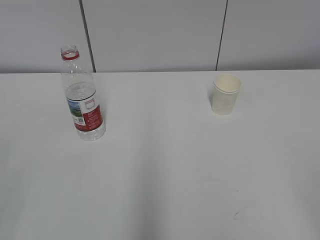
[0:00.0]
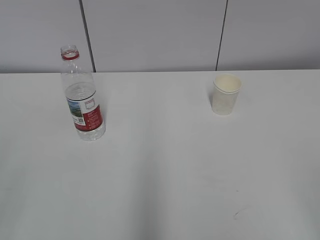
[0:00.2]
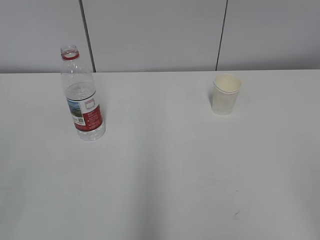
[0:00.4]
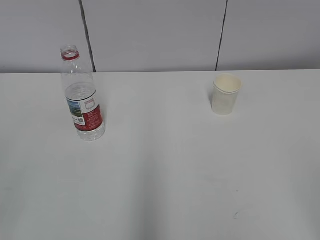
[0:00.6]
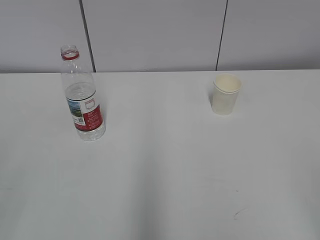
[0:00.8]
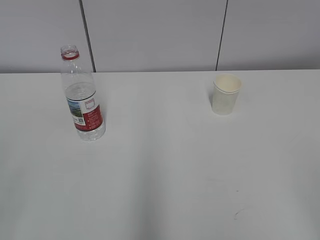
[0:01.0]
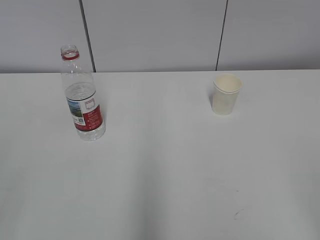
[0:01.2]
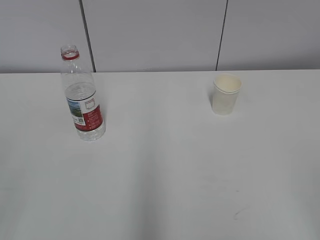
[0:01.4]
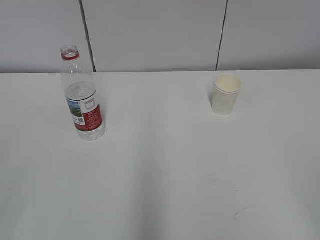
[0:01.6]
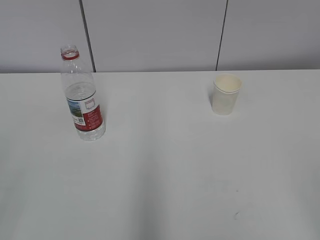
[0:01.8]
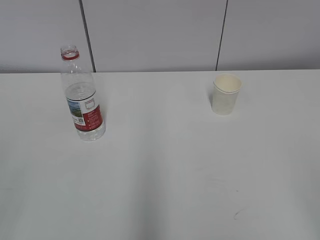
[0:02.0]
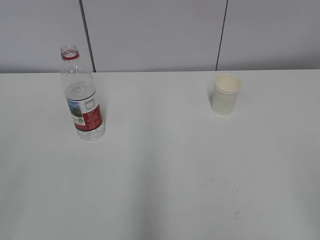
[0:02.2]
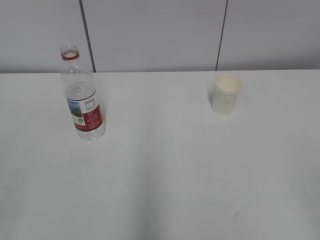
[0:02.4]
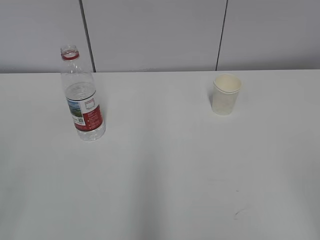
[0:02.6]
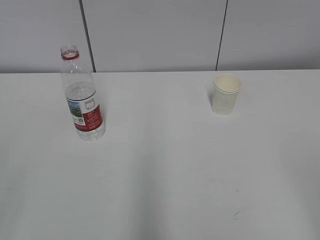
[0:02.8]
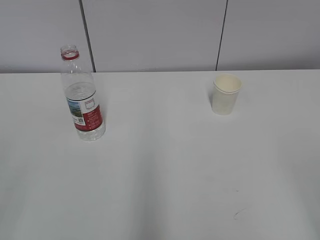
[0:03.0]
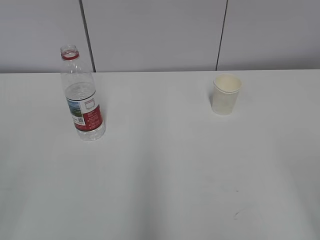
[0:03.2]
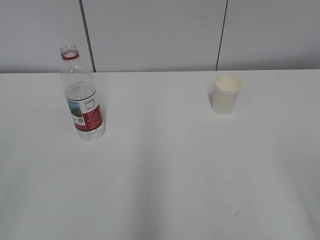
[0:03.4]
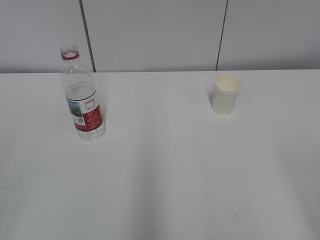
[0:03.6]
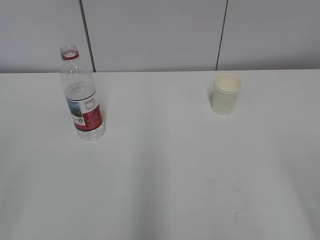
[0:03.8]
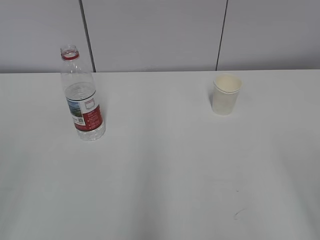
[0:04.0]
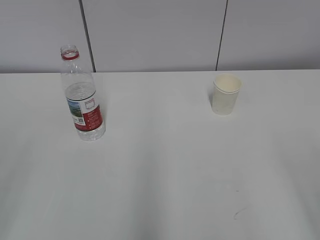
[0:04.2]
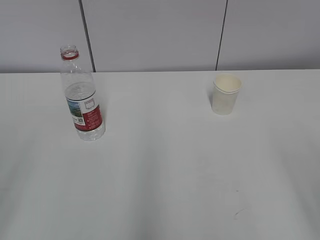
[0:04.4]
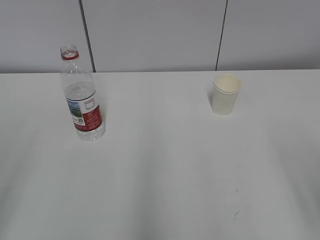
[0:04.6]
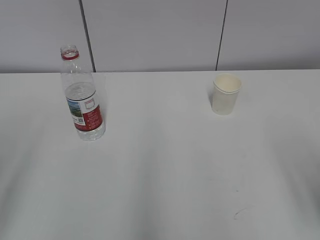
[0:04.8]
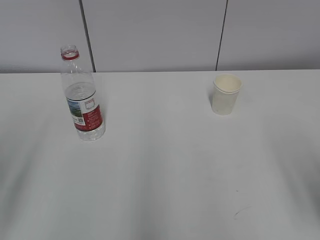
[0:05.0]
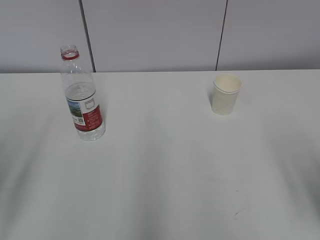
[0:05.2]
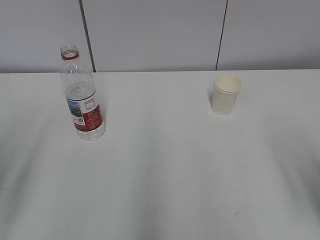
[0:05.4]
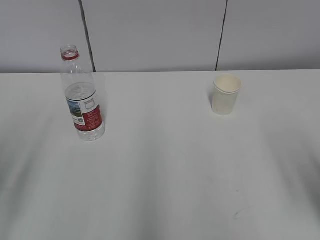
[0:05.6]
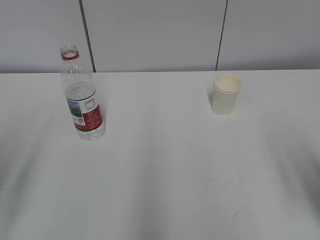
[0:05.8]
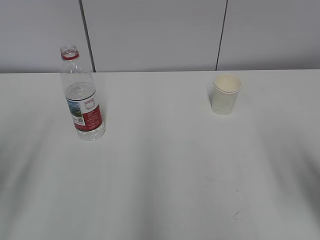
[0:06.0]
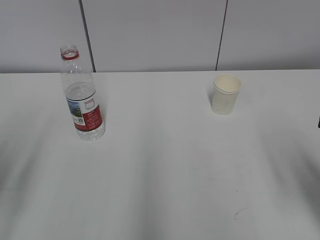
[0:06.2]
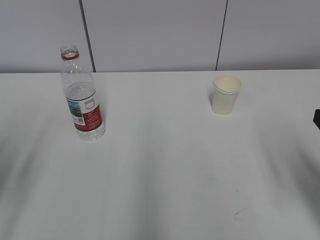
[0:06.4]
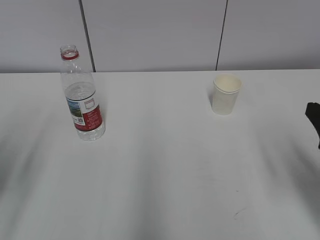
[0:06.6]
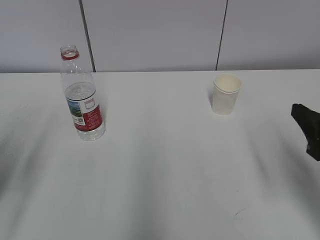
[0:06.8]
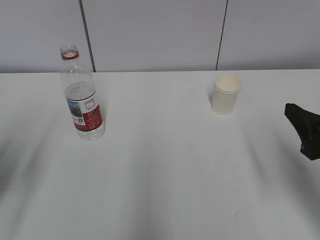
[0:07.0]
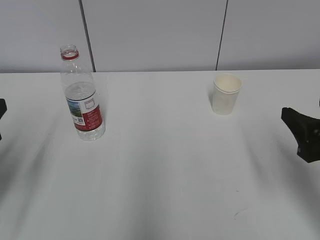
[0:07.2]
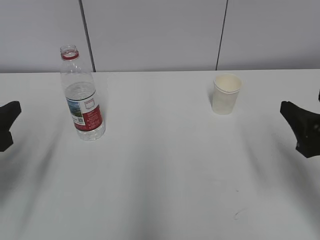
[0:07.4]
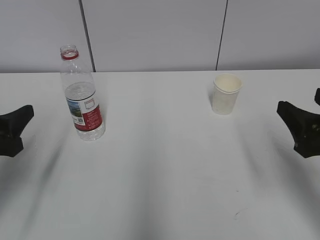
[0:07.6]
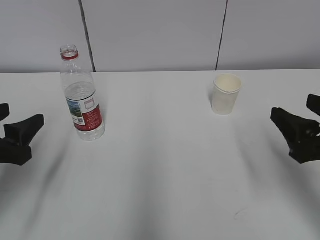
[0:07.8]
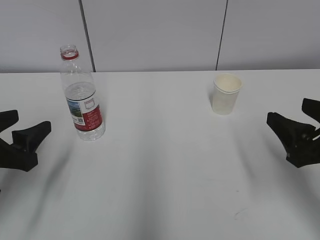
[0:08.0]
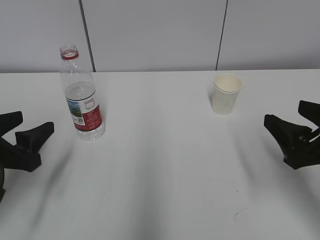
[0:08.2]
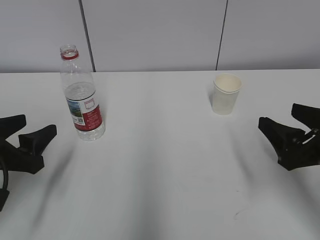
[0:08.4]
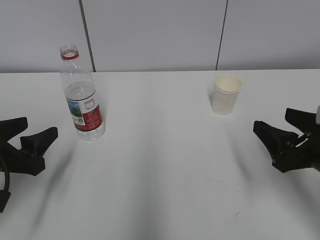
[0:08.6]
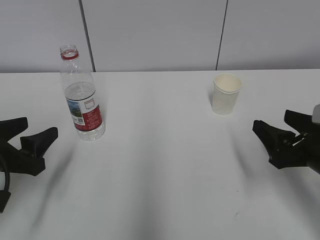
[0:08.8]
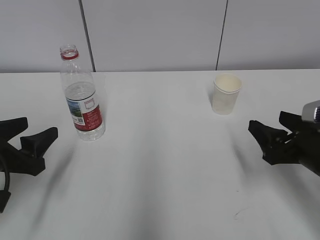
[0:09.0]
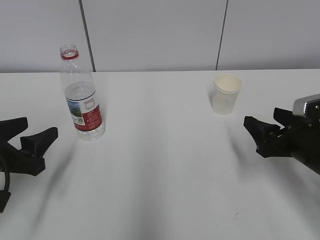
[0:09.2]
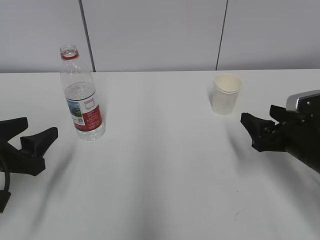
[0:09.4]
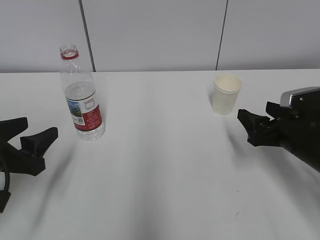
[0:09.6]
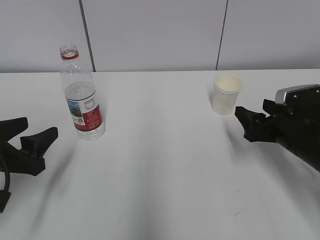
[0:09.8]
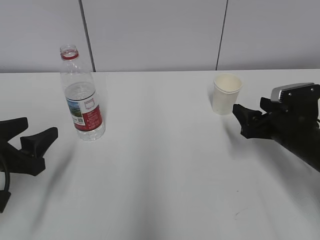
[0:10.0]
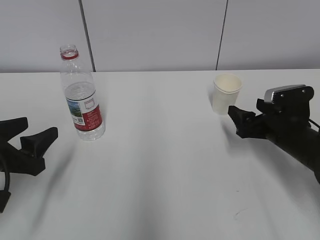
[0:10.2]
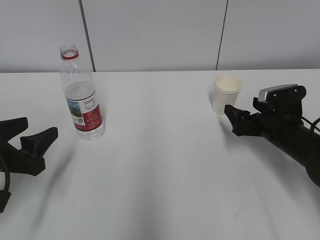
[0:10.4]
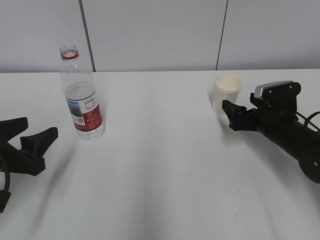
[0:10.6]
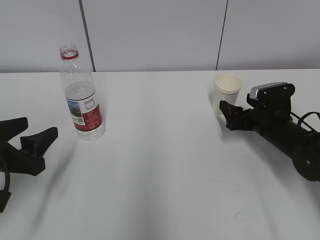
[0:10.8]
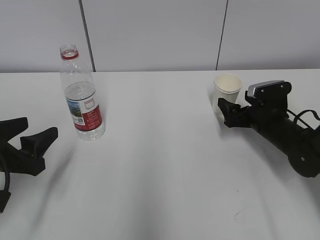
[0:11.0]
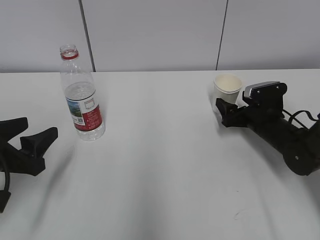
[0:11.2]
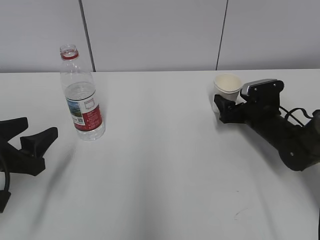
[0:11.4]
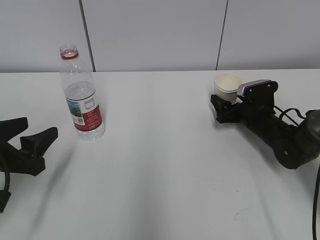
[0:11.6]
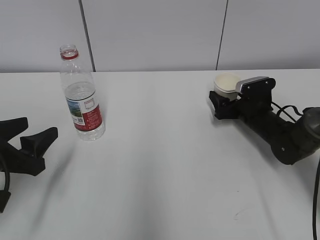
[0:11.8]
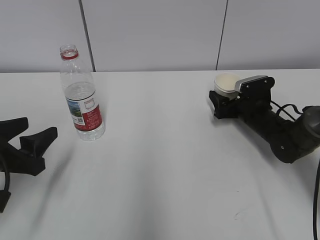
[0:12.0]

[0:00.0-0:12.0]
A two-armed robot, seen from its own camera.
0:04.4 to 0:06.0: The right gripper is displaced forward by about 10 cm.
0:06.0 to 0:07.6: The right gripper goes about 5 cm forward; the left gripper shifts some 10 cm forward and downward.
0:07.6 to 0:09.0: The right gripper travels downward by approximately 5 cm.
0:09.0 to 0:10.4: The right gripper is displaced forward by about 10 cm, and opens its fingers.
0:10.4 to 0:12.0: The right gripper travels forward by approximately 10 cm.

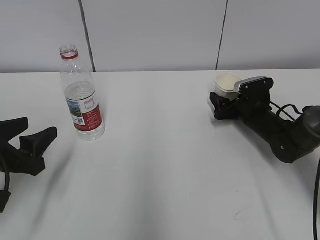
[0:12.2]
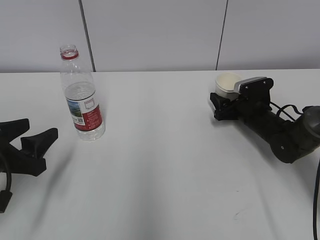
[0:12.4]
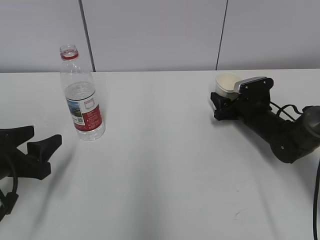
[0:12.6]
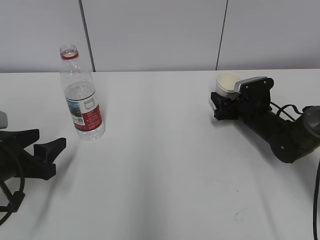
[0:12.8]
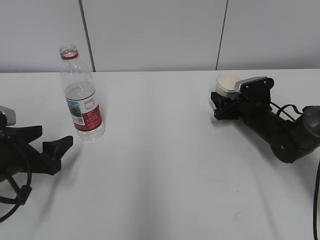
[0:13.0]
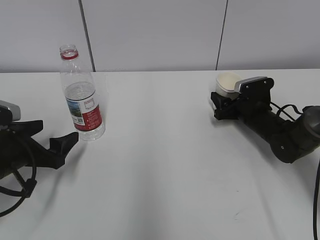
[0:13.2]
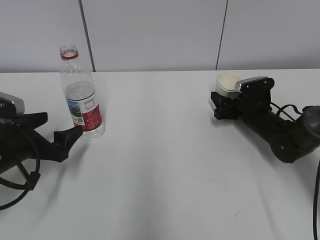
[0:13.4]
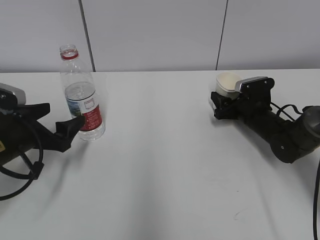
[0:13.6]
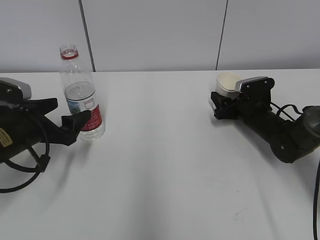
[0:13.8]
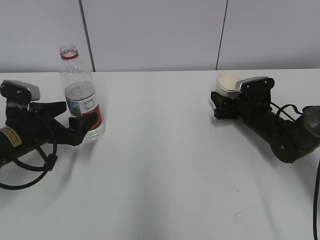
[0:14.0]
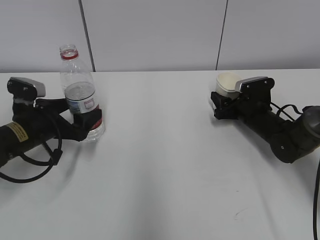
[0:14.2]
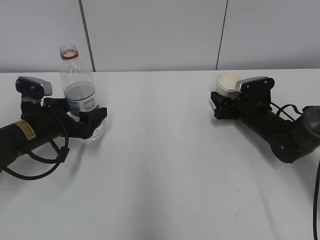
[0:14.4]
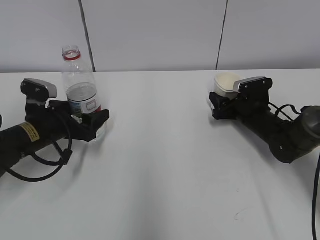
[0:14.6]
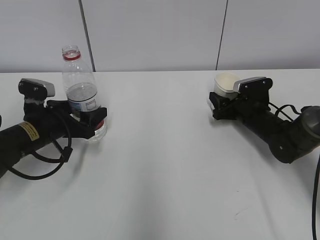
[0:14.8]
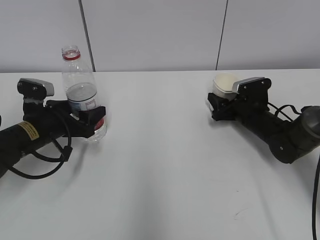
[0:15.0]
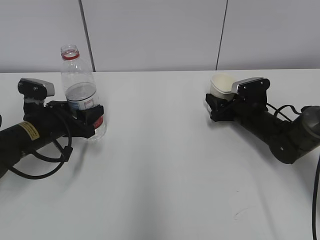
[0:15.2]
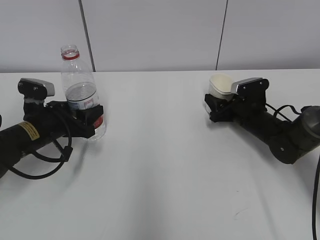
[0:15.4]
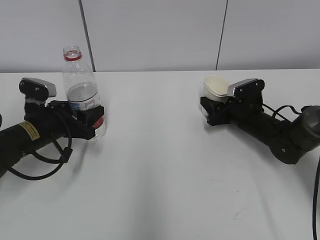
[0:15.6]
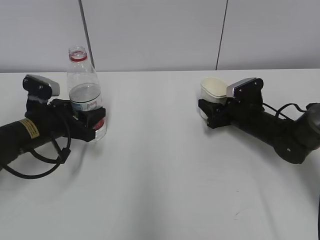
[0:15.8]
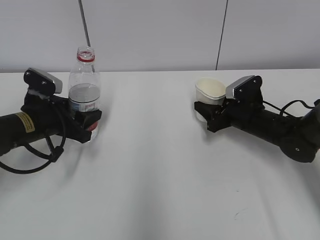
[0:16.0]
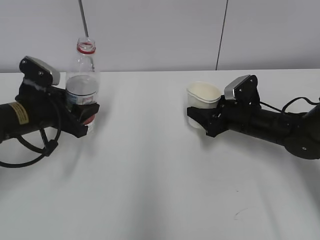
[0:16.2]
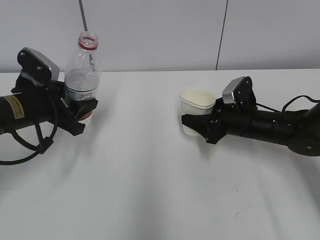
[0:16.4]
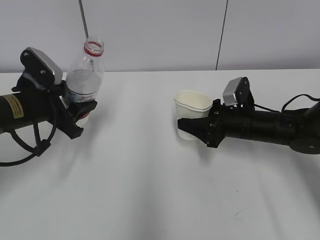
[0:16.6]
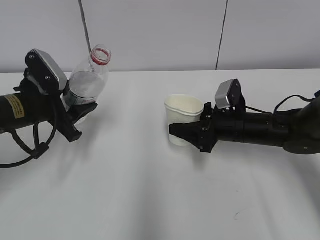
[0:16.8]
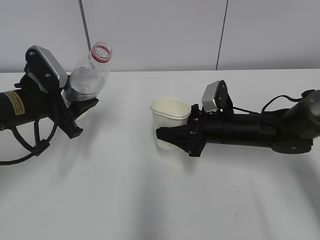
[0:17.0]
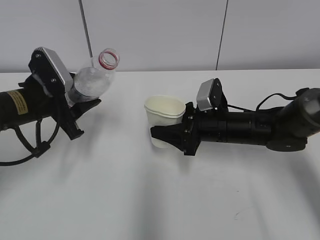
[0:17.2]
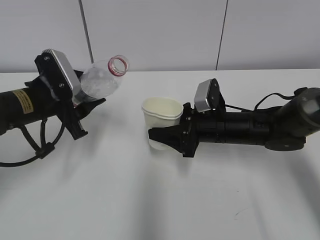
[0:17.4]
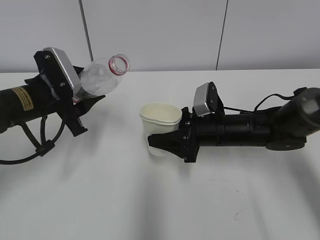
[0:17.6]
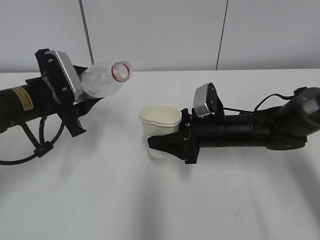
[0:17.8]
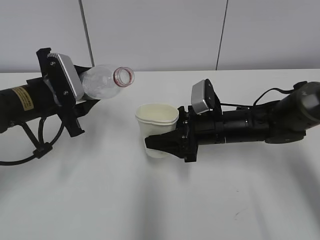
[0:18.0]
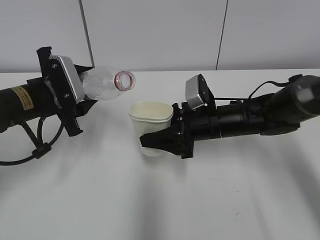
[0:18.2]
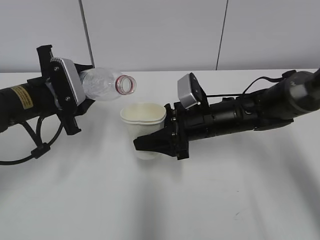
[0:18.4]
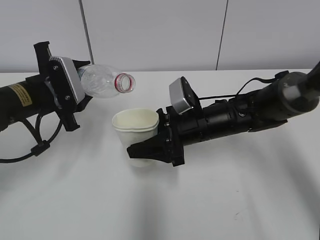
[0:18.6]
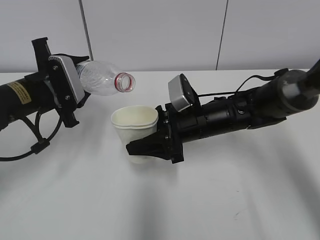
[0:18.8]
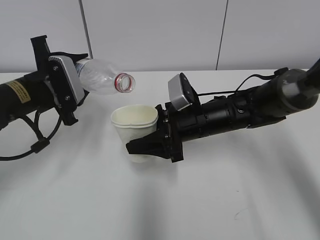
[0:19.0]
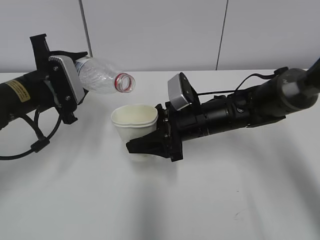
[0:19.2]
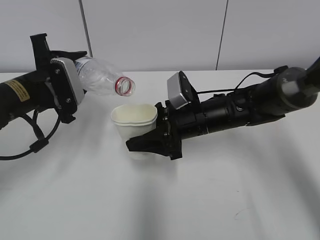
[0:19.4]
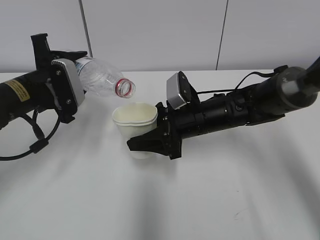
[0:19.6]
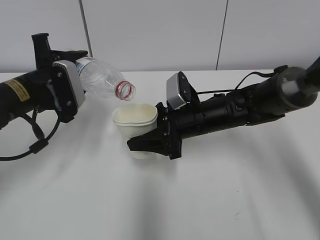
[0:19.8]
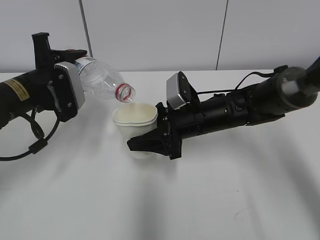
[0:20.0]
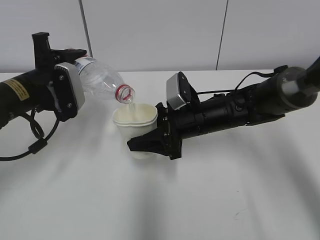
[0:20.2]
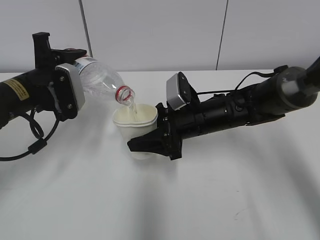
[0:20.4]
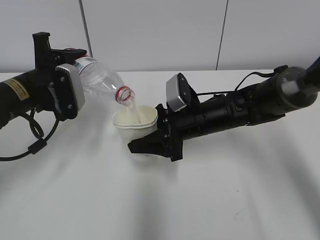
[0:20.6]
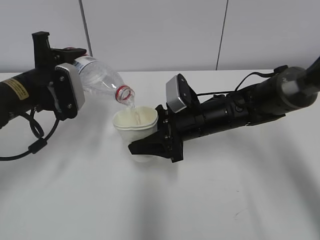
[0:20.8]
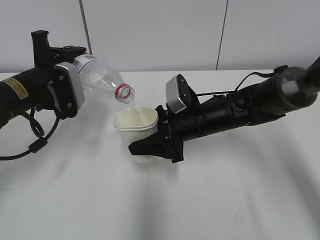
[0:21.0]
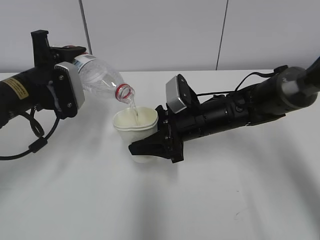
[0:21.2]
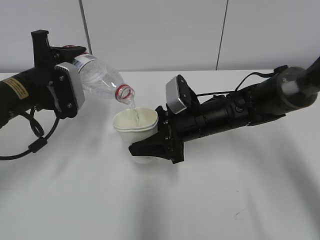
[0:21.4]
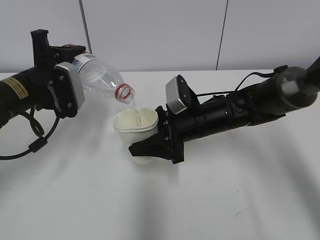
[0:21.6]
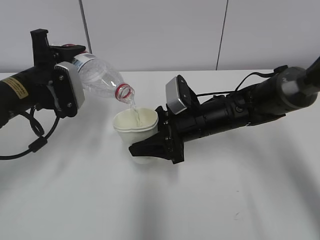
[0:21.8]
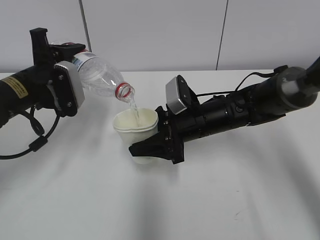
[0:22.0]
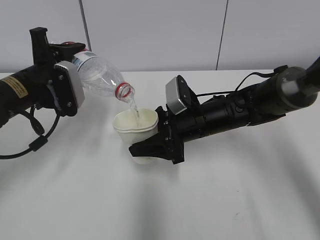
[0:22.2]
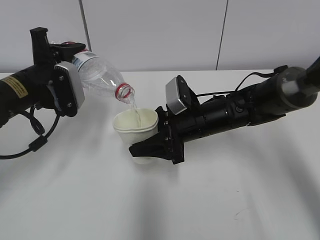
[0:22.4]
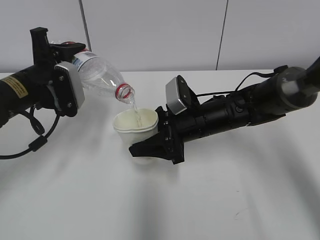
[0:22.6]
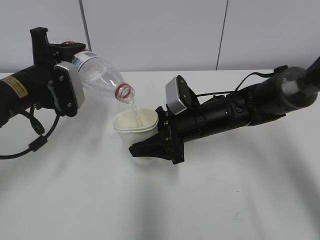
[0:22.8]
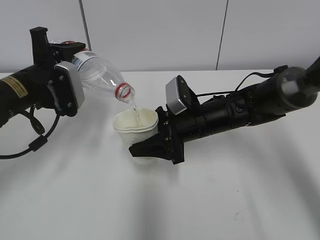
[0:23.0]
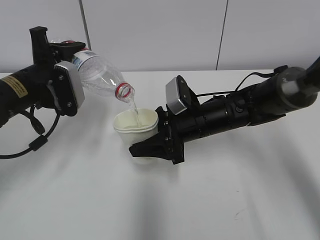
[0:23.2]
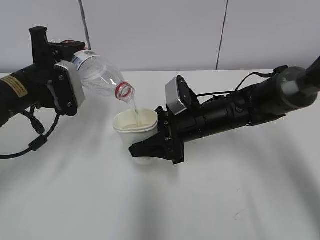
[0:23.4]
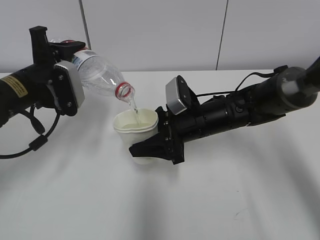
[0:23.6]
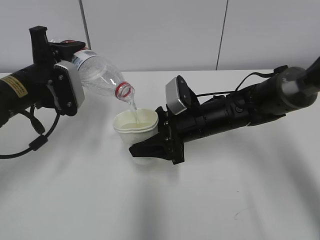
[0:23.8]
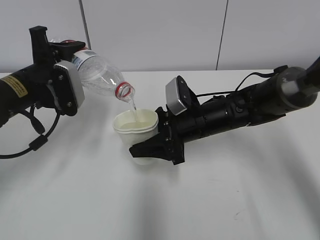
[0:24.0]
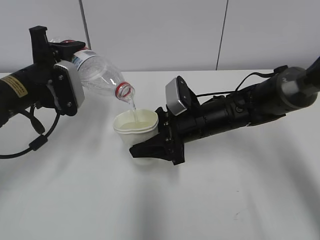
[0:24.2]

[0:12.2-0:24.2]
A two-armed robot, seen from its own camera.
Step, 0:13.2 to 0:16.6: Lift the paper cup with the right hand.
Step, 0:16.8 to 0:21.0: Fill water with the right hand.
Step, 0:16.8 to 0:21.0: Pour water with the left hand.
0:12.2 to 0:13.8: The left gripper travels forward by some 10 cm, and opens its fingers.
0:13.8 to 0:15.2: The left gripper moves approximately 5 cm, and closes its fingers.
0:15.2 to 0:16.6: The left gripper heads upward, covering roughly 5 cm; the right gripper is displaced backward by approximately 5 cm.
0:16.6 to 0:18.2: The right gripper heads to the left, covering roughly 5 cm.
0:19.8 to 0:21.2: The grippers stay close to where they were, moving slightly.
0:21.2 to 0:24.2: Both grippers stay about where they are.
